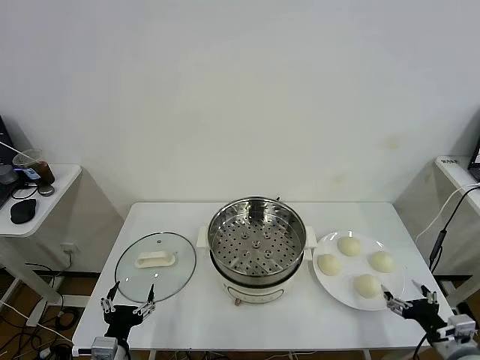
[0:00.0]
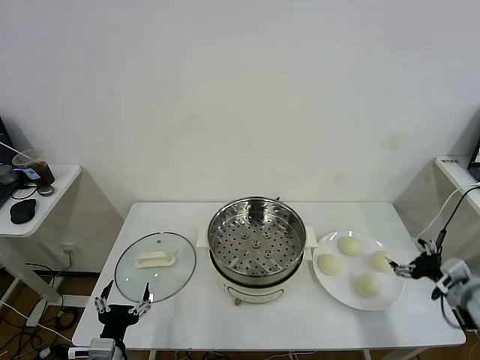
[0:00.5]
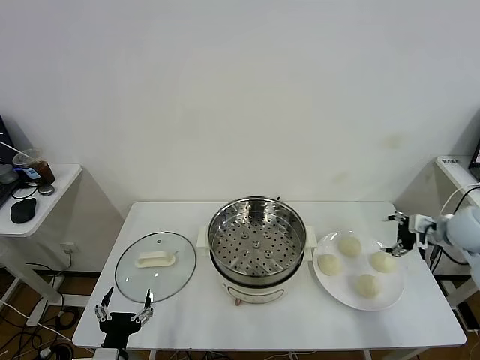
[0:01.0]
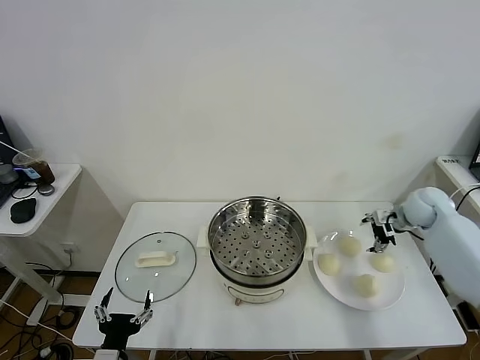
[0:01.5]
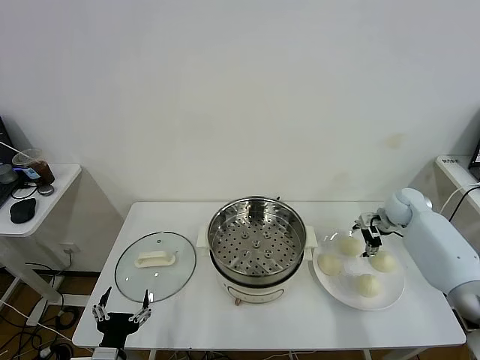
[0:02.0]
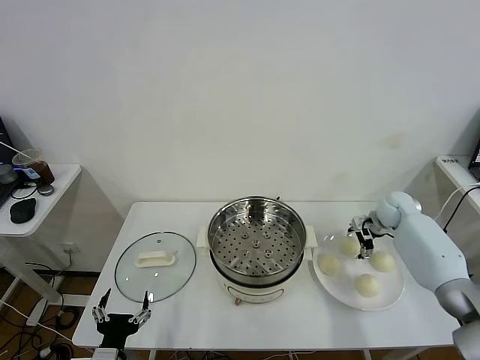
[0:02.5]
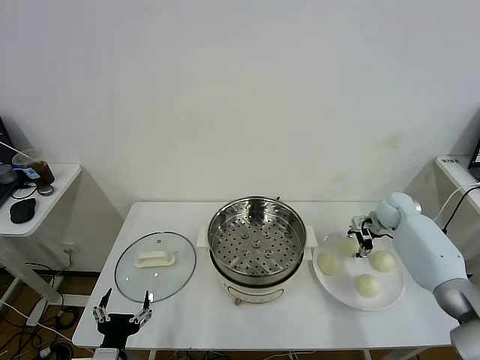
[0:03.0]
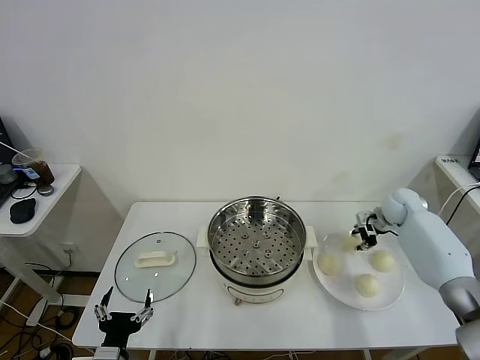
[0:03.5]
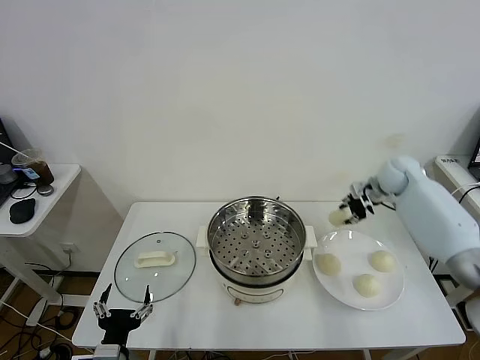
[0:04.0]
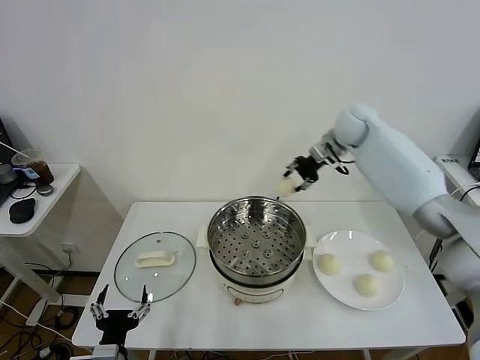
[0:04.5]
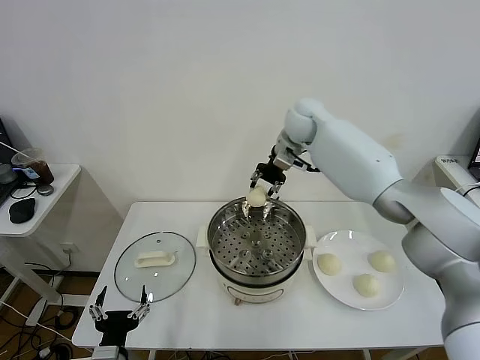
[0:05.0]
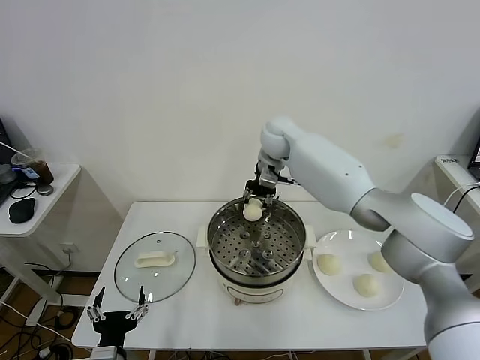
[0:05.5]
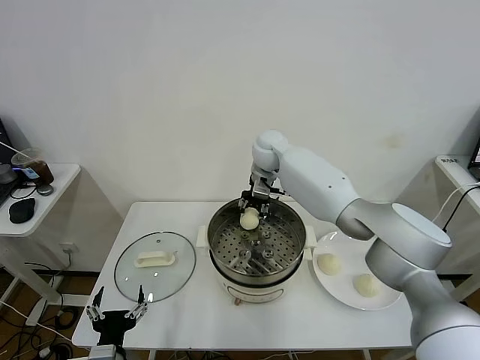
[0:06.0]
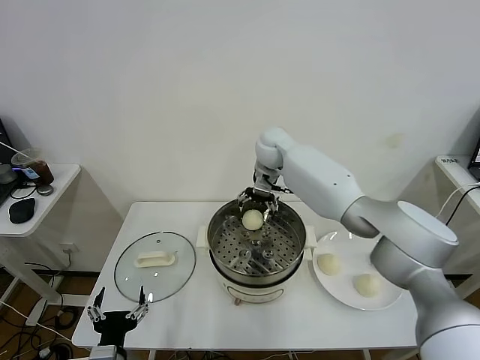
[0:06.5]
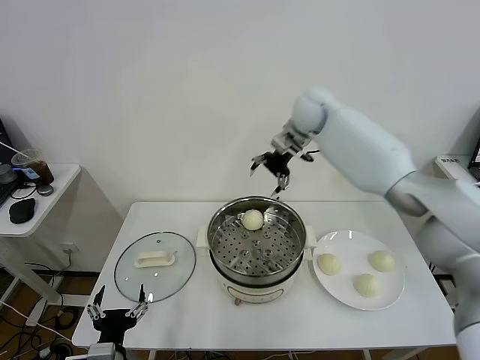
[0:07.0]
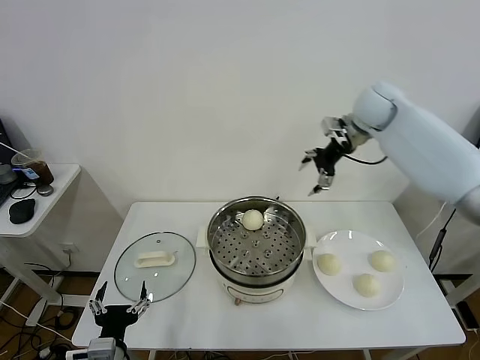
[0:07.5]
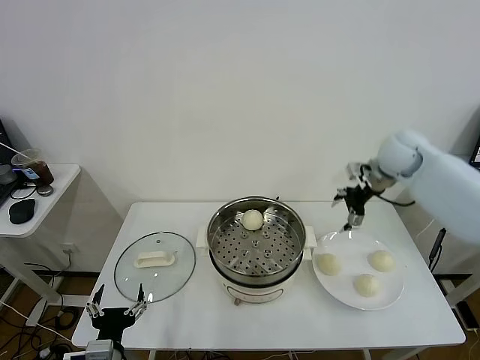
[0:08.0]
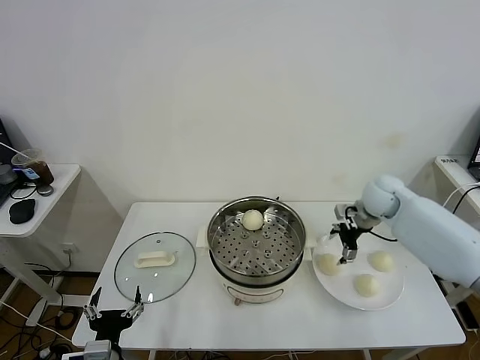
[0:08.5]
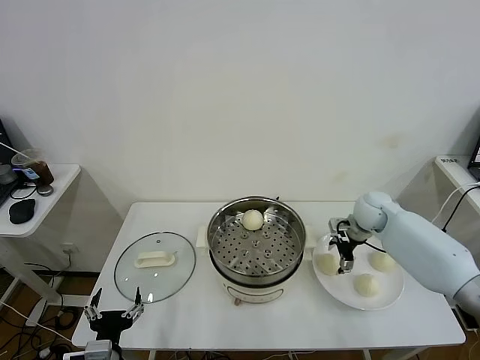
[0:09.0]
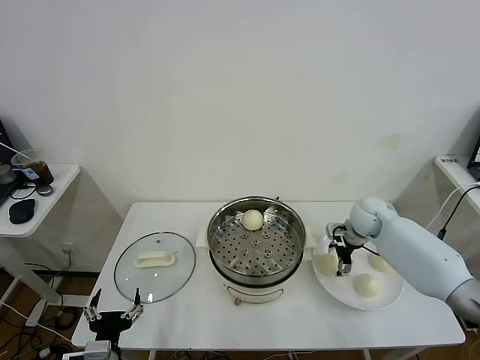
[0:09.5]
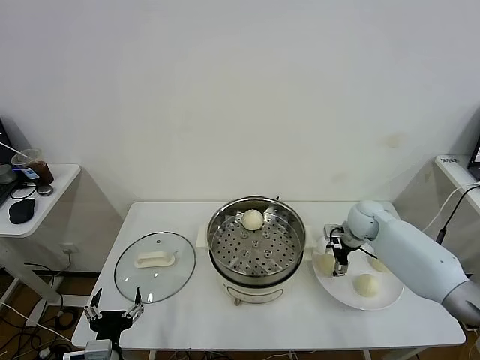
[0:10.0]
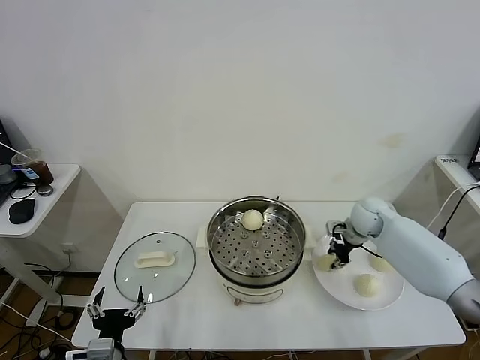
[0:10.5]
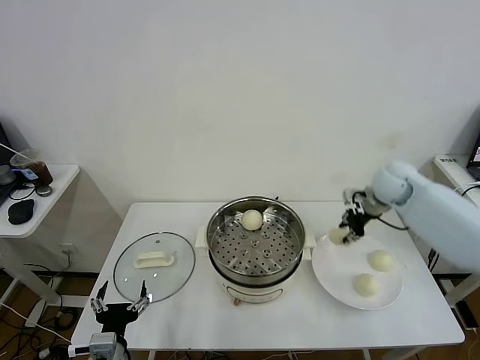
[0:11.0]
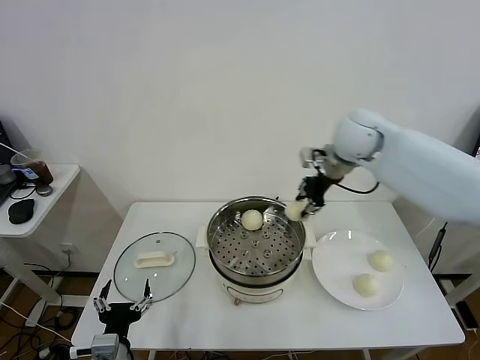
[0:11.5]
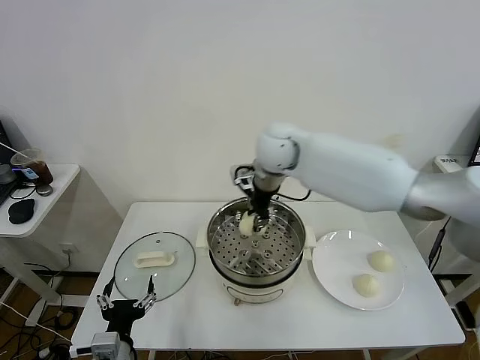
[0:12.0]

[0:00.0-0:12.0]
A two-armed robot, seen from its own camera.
Task of the whole recording: take steamed baozi put them in steamer.
Step, 0.0 to 3.0 s: Grasp the baozi in the plate with right gripper.
Step, 3.5 to 6.0 s: Place the baozi on the steamer with right gripper.
Step, 6.5 to 10.5 s: Grasp the baozi in the plate with right gripper.
2.0 to 4.0 s: The right gripper heads upward, covering approximately 10 cm, and closes its fingers.
4.0 to 6.0 s: The right gripper goes approximately 30 cm to the left.
6.0 to 8.0 s: The right gripper heads to the right, covering some 30 cm, and opens.
8.0 to 10.0 s: The right gripper travels downward by roughly 20 cm.
10.0 to 12.0 s: The right gripper moves to the left and upward, about 35 cm, and closes up.

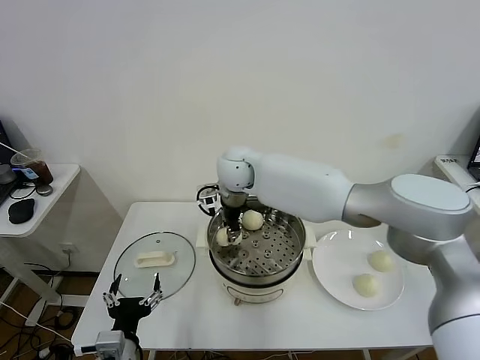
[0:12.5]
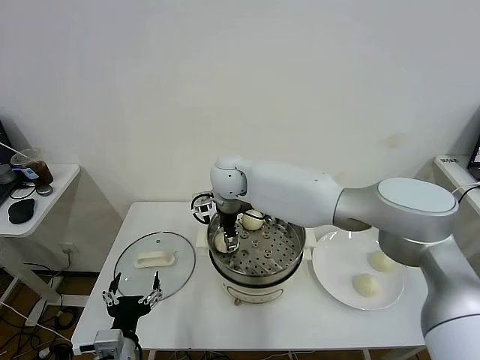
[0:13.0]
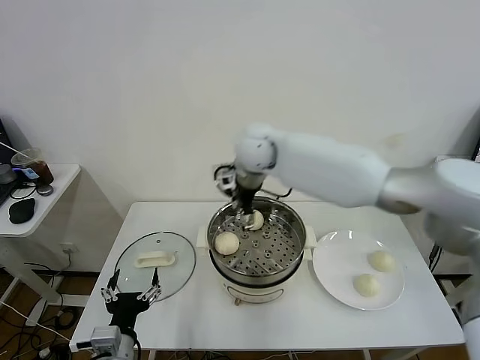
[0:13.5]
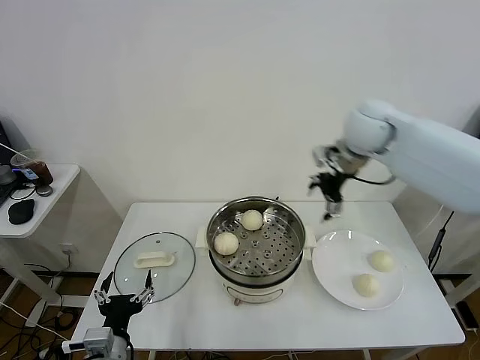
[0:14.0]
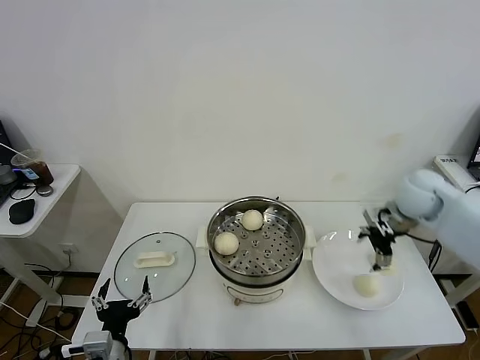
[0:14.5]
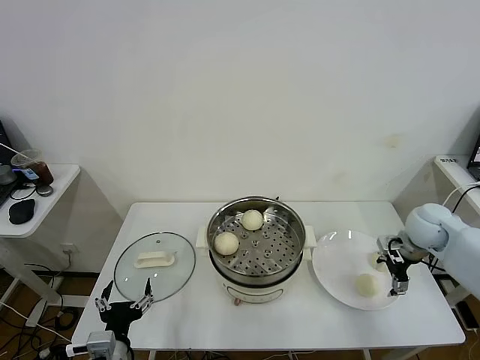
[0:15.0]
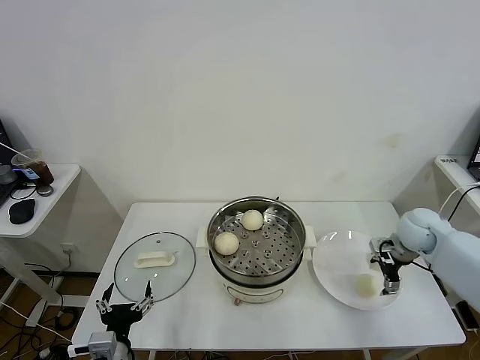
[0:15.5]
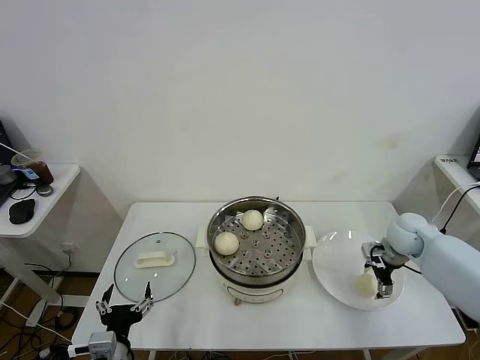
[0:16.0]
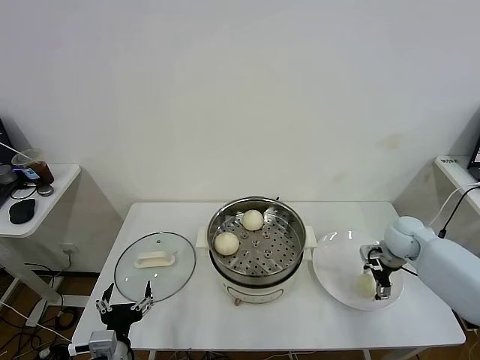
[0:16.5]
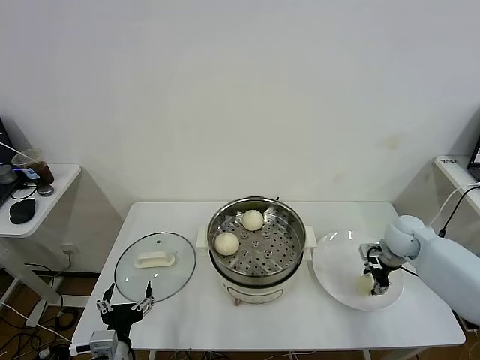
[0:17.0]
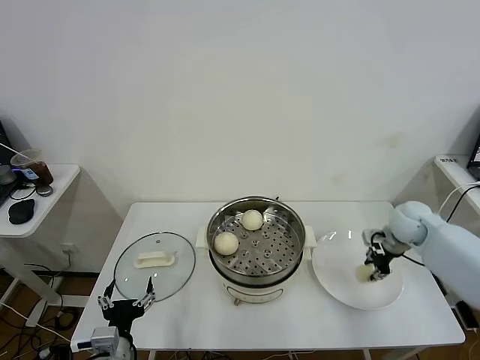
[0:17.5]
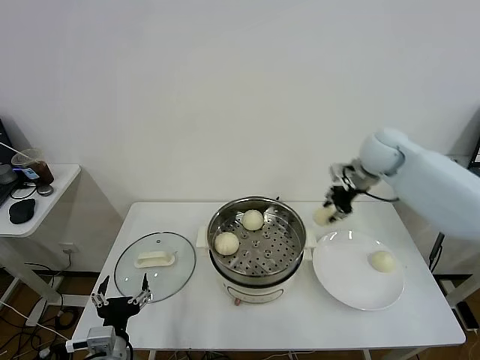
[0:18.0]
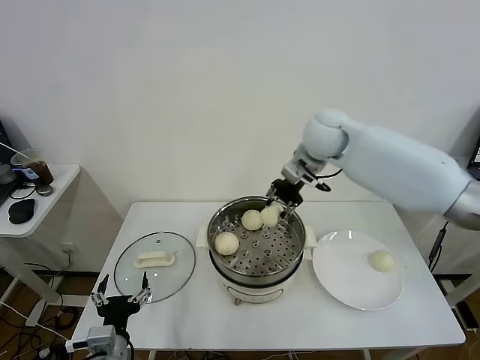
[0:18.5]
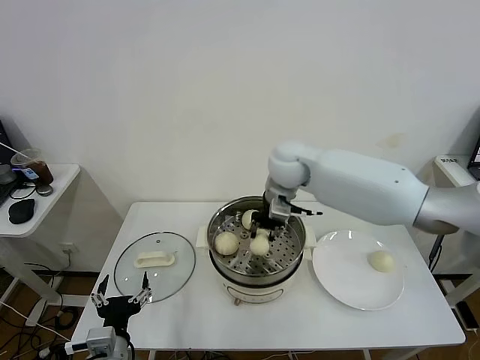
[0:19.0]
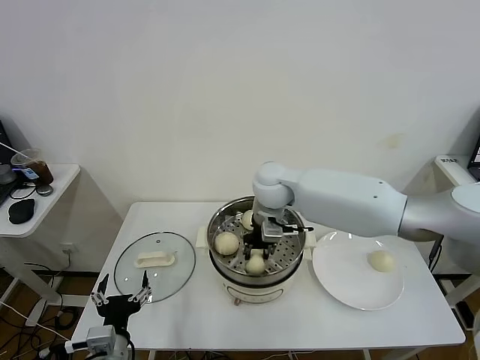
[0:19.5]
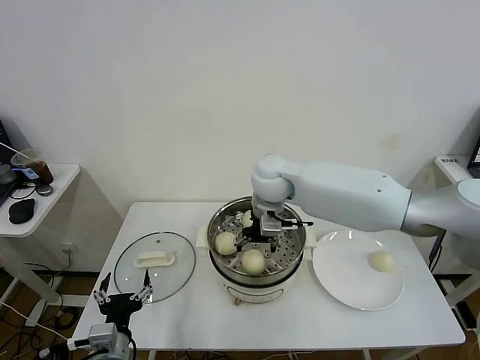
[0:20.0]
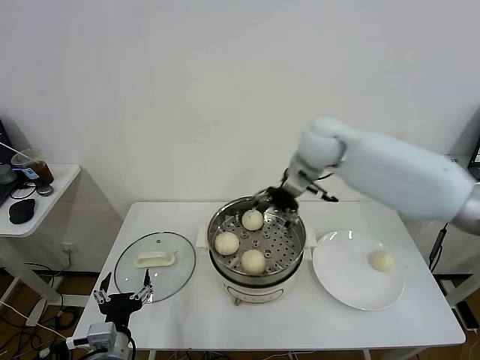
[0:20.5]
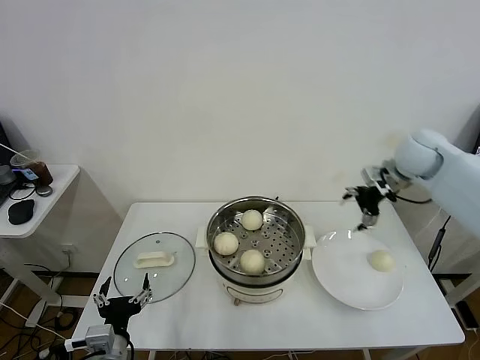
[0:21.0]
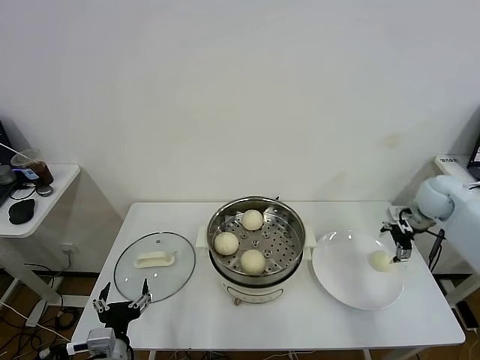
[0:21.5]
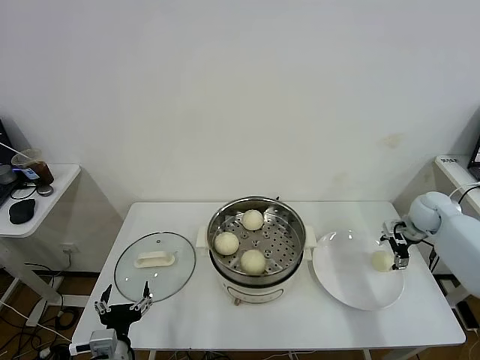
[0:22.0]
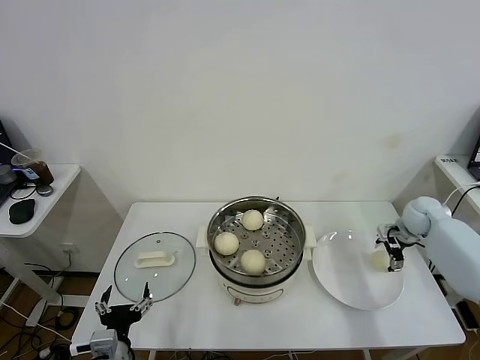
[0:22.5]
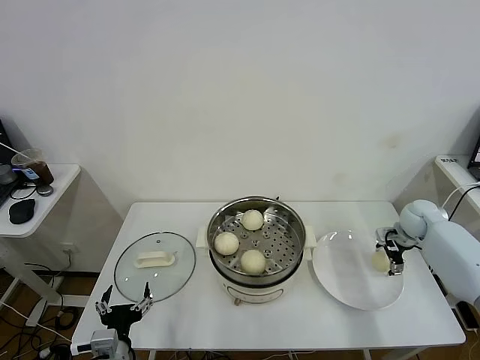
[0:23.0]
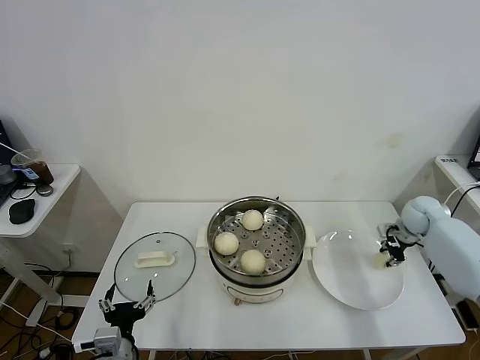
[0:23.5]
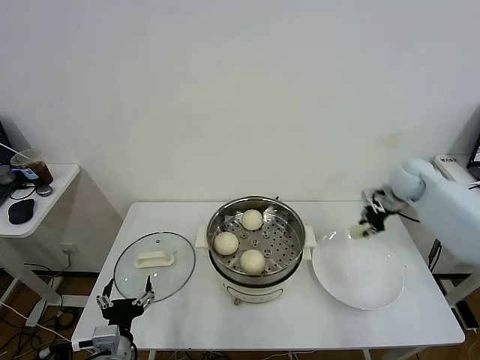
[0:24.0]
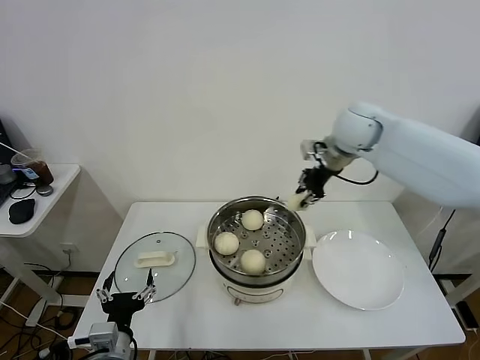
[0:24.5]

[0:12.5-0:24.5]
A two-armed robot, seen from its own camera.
Task of the whole recording: take steamed baozi put them in steamer.
Step, 13.5 to 17.0 s: Grasp the baozi in the plate with right gripper.
Step, 17.5 to 20.0 s: Place the baozi on the steamer with right gripper.
Step, 20.5 to 23.5 s: Grasp the baozi in the plate with right gripper.
12.5 to 14.5 s: The right gripper travels to the right by some 40 cm, and opens up.
14.5 to 16.5 s: The right gripper heads downward, covering about 15 cm.
16.5 to 18.5 s: The right gripper moves upward and to the left, roughly 35 cm, and closes its fingers.
18.5 to 20.5 s: The right gripper goes to the left and returns, some 10 cm each way, and opens.
20.5 to 22.5 s: The right gripper shifts approximately 40 cm to the right and downward.
22.5 to 24.5 s: The right gripper heads upward and to the left, covering approximately 35 cm, and closes.

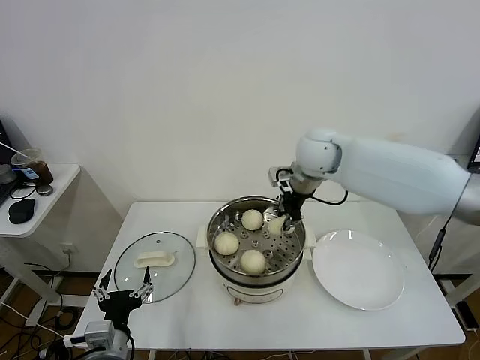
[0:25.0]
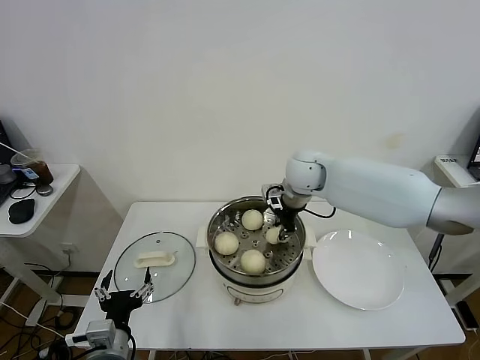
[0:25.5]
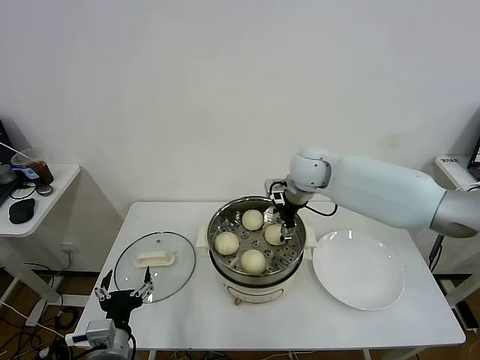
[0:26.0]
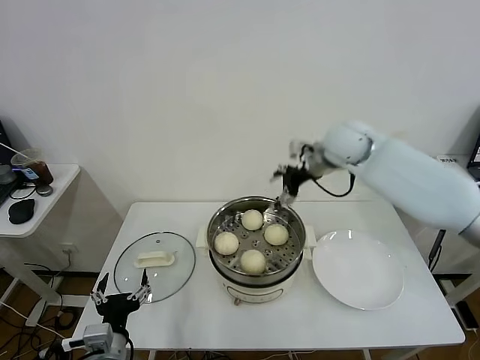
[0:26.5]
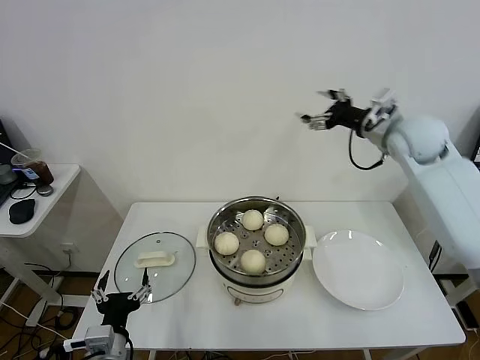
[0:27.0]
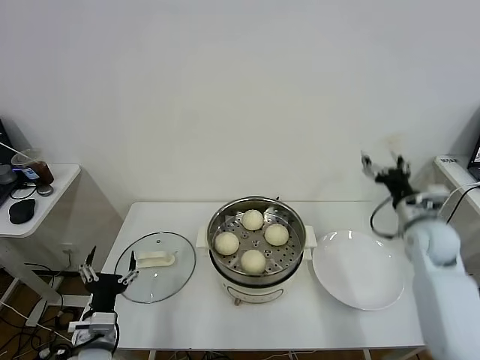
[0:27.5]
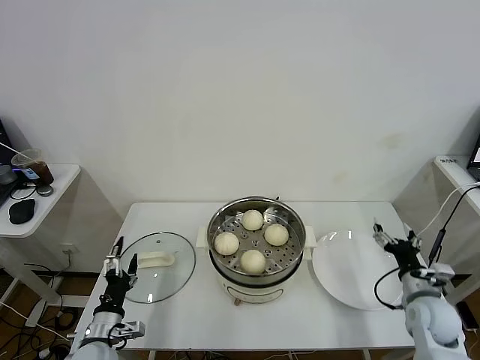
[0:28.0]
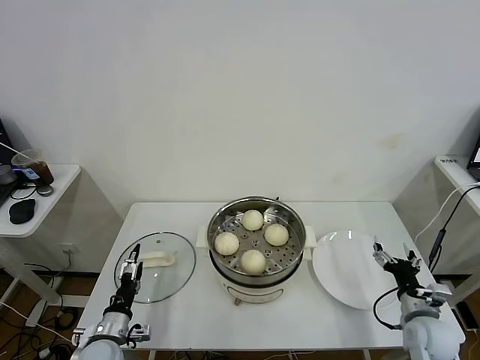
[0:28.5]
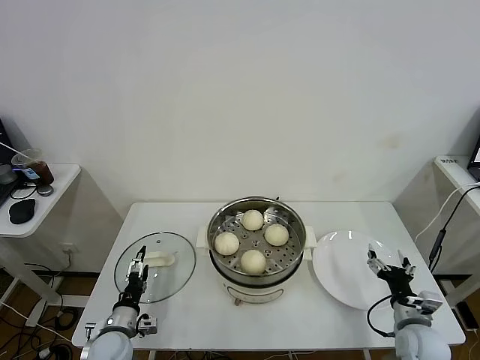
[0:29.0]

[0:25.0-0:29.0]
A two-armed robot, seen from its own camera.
Task of the whole recording: take steamed baozi put them in steamer.
25.0 to 27.0 s: The right gripper moves to the right, some 15 cm, and opens.
27.0 to 29.0 s: The left gripper heads downward, forward and to the left, covering some 15 cm, while the right gripper moves downward and backward, about 40 cm.
